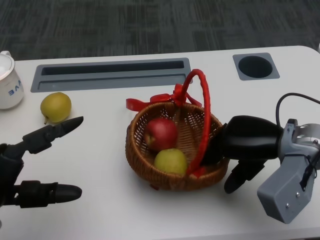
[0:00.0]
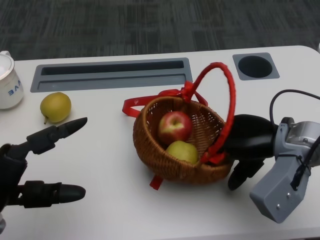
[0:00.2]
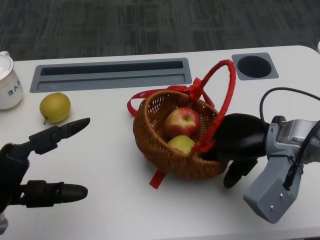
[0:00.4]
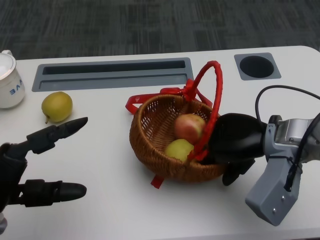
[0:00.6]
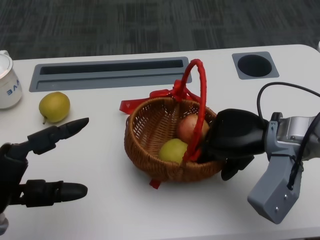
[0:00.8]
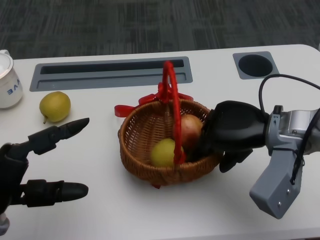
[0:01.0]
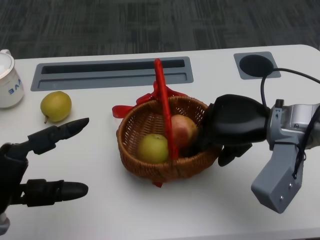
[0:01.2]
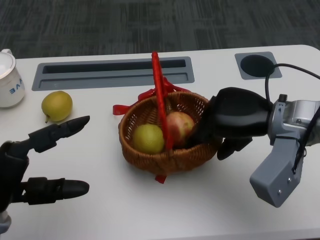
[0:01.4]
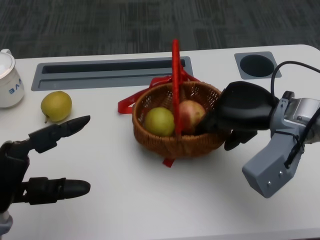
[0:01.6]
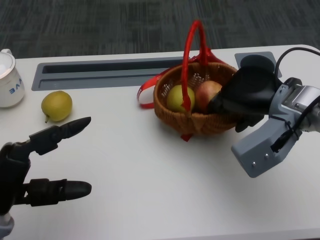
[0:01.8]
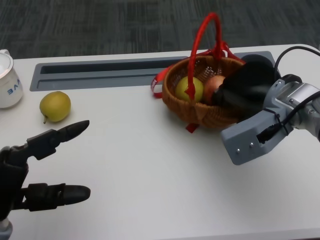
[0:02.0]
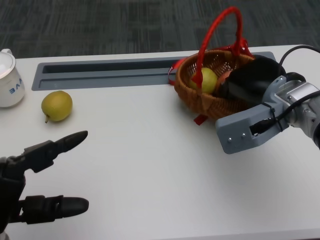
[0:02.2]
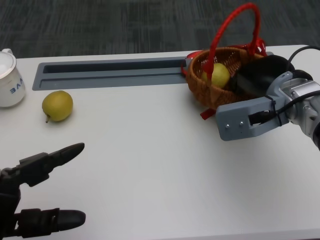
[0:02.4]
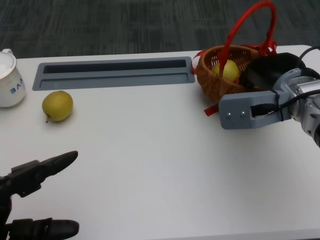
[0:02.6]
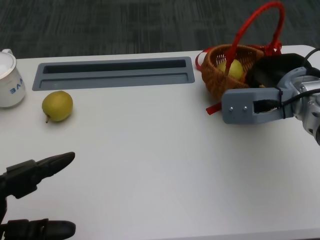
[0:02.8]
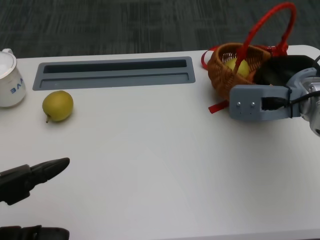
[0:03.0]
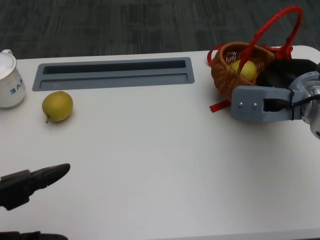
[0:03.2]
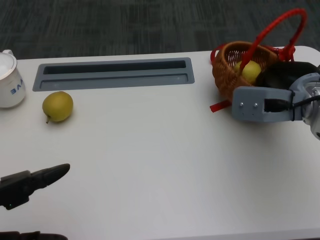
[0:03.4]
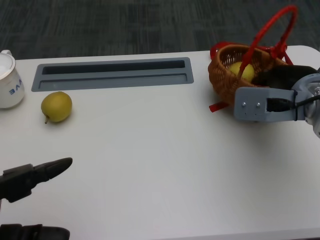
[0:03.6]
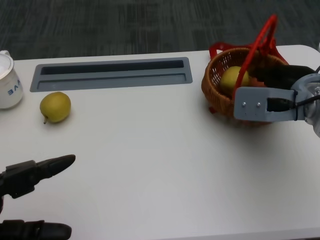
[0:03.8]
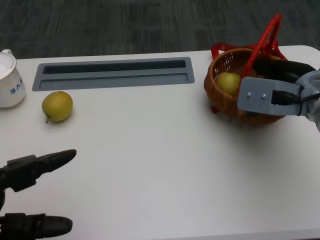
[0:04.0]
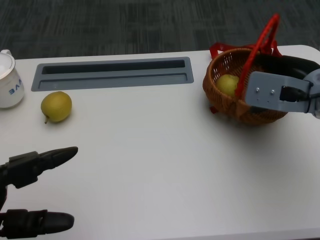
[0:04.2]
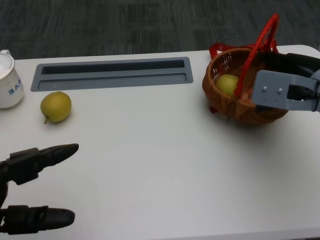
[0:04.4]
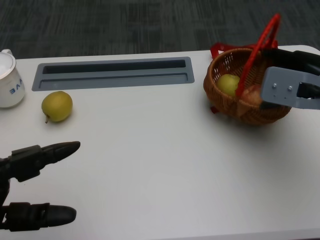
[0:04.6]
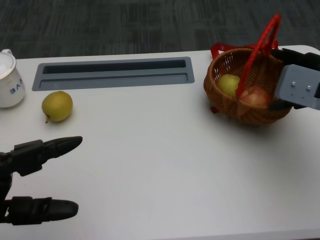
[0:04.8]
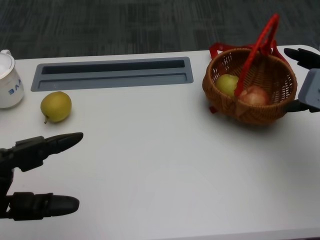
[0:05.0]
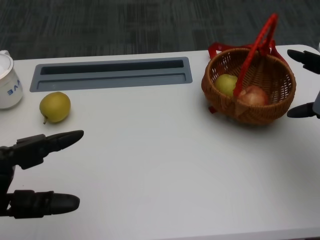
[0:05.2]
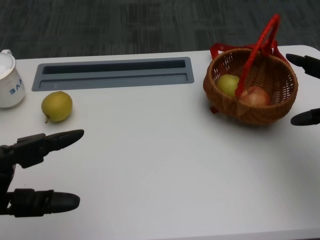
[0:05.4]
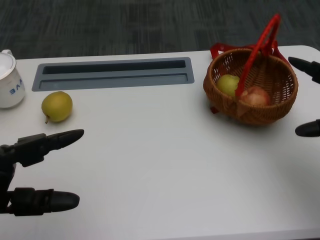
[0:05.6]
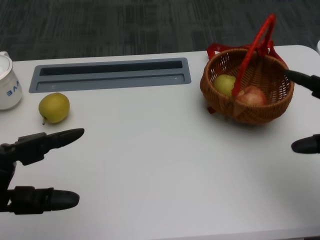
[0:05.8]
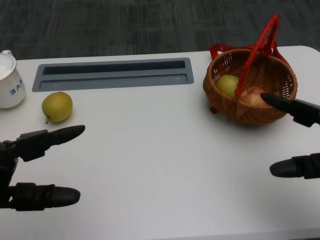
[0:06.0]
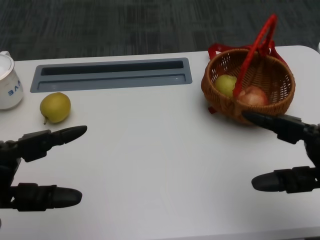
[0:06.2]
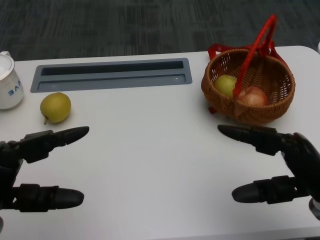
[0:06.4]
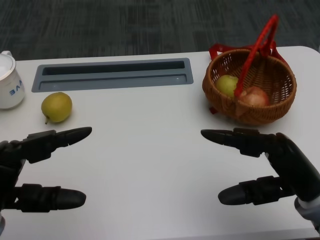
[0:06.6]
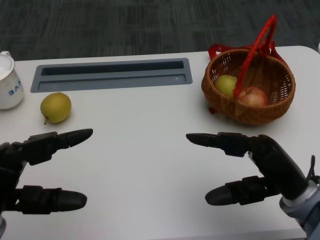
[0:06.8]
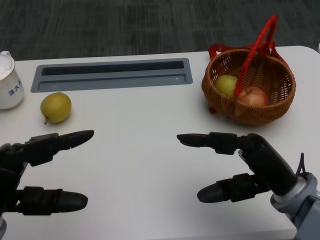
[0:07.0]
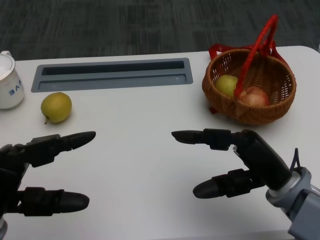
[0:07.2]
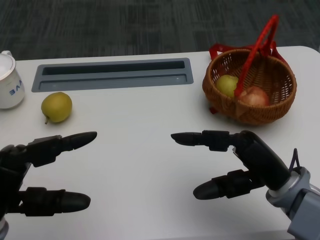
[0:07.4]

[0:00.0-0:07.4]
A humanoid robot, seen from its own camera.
Step, 0:00.0 to 0:01.4: Move the basket to the front of the table with the right gripper.
0:01.4 to 0:03.0: The left hand shifts roughly 5 cm backward.
0:03.0 to 0:04.4: The hands make only small movements.
0:04.4 to 0:06.0: The right hand is displaced backward, to the right and downward by some 15 cm.
0:06.0 to 0:07.4: The right hand shifts roughly 10 cm to the left.
